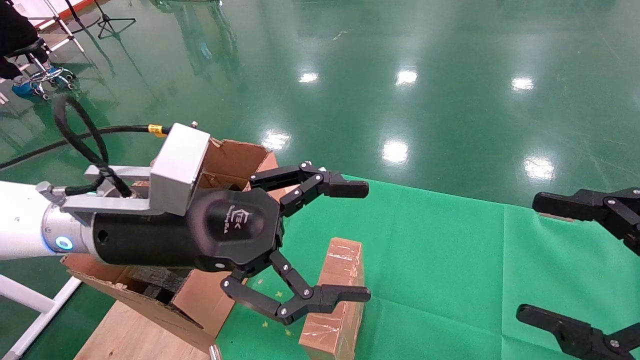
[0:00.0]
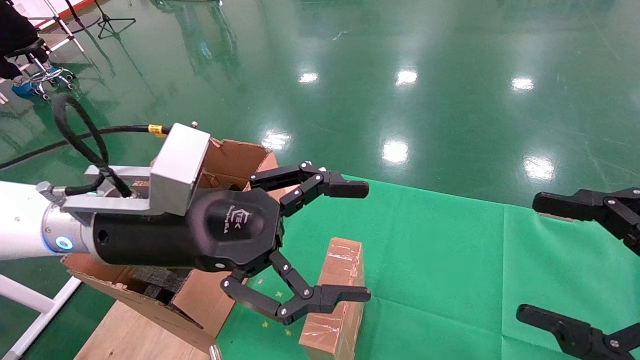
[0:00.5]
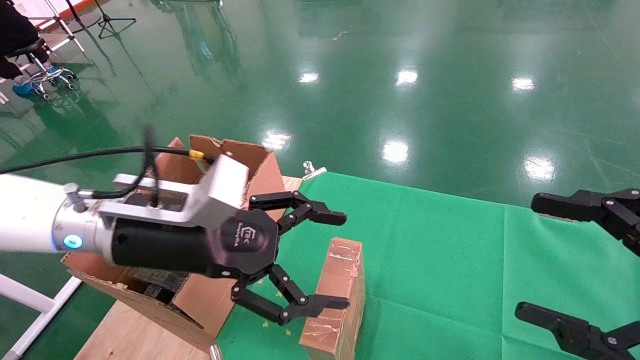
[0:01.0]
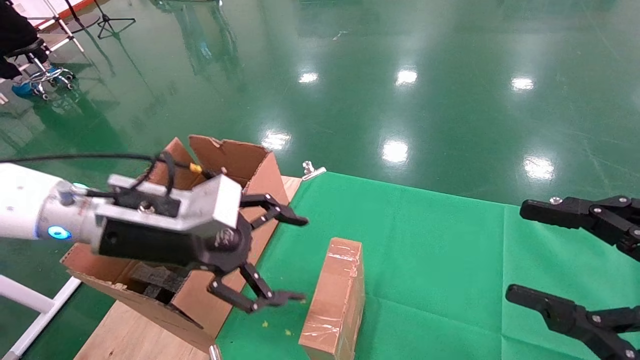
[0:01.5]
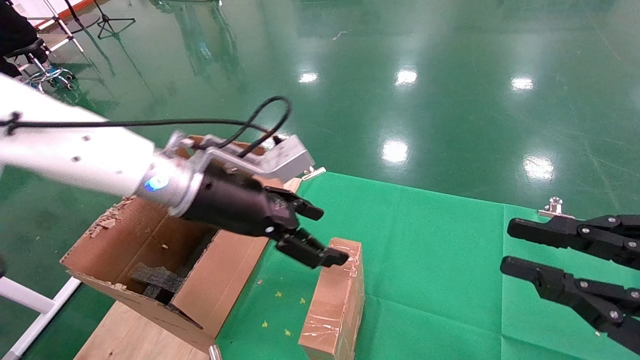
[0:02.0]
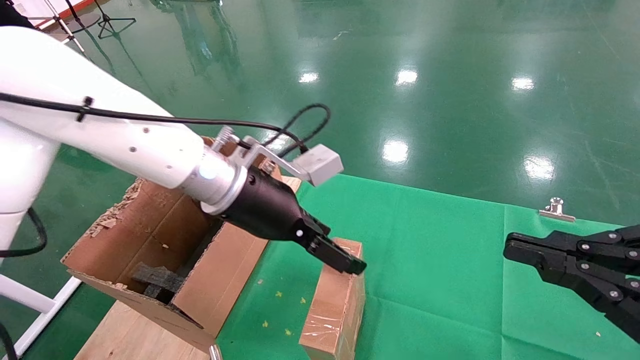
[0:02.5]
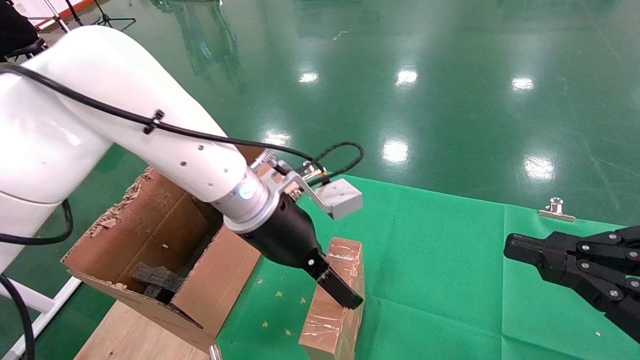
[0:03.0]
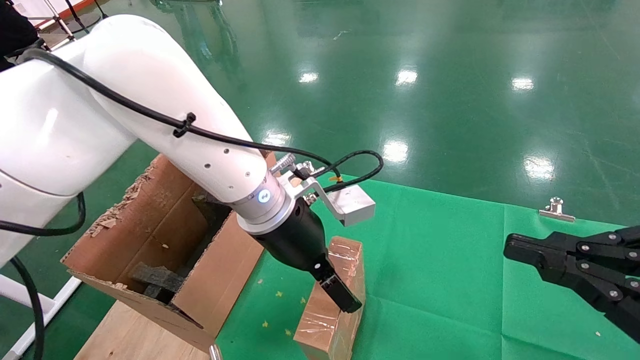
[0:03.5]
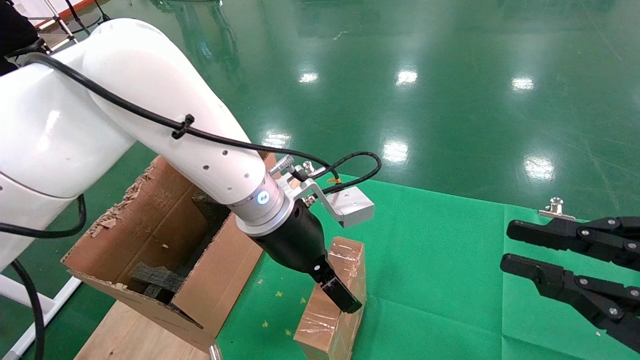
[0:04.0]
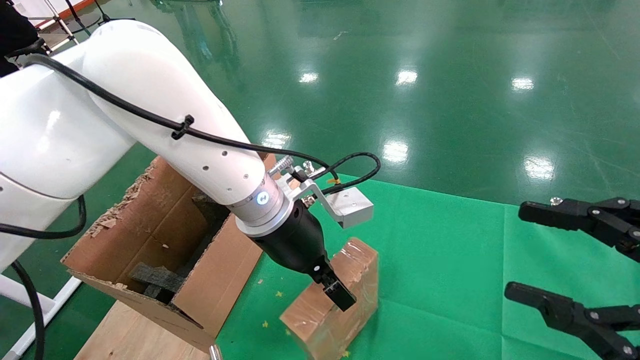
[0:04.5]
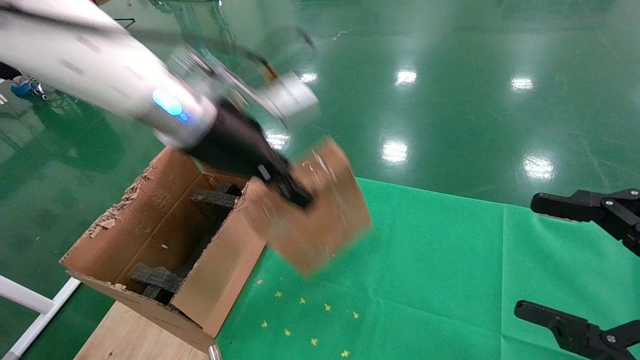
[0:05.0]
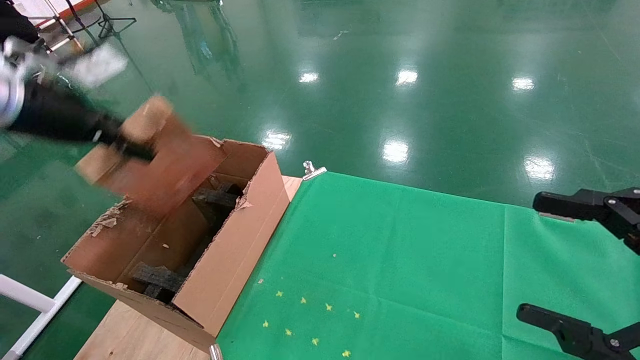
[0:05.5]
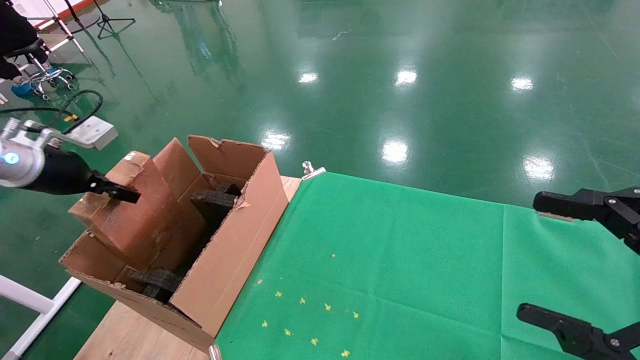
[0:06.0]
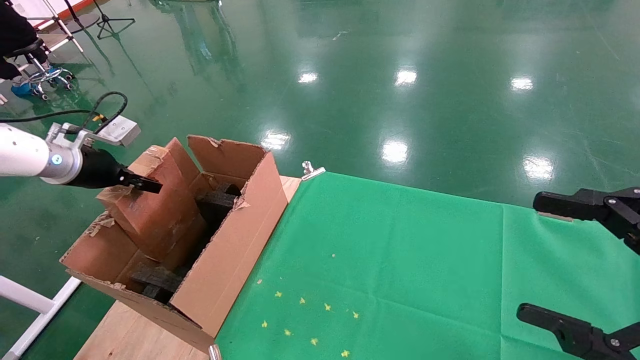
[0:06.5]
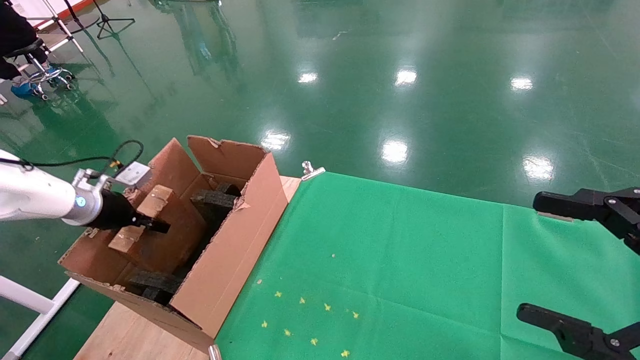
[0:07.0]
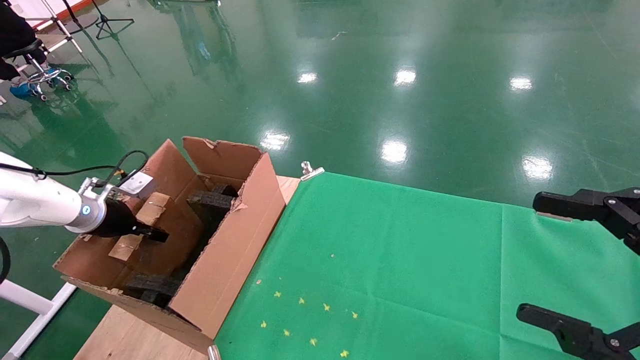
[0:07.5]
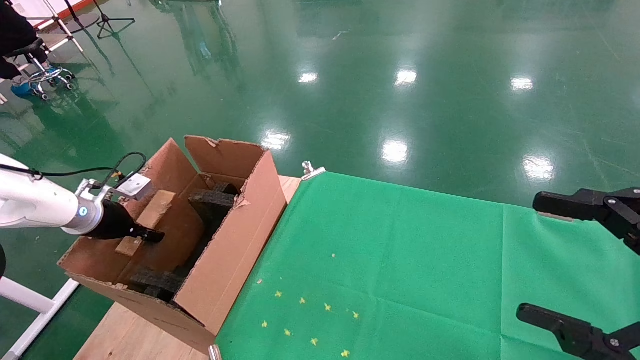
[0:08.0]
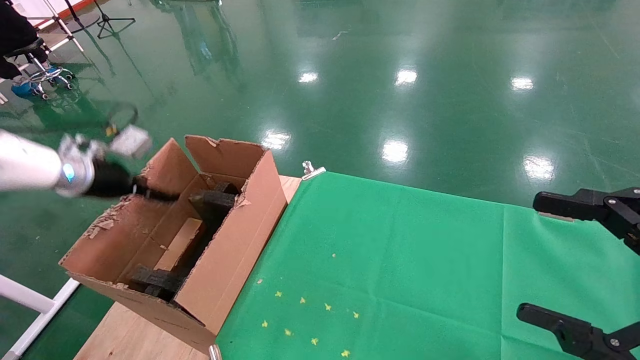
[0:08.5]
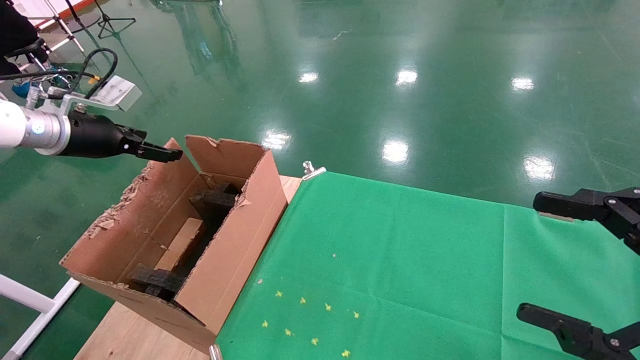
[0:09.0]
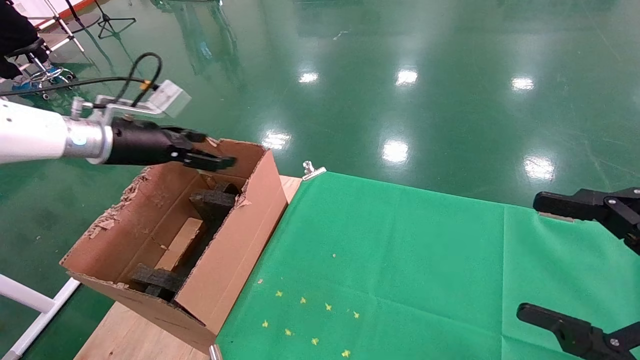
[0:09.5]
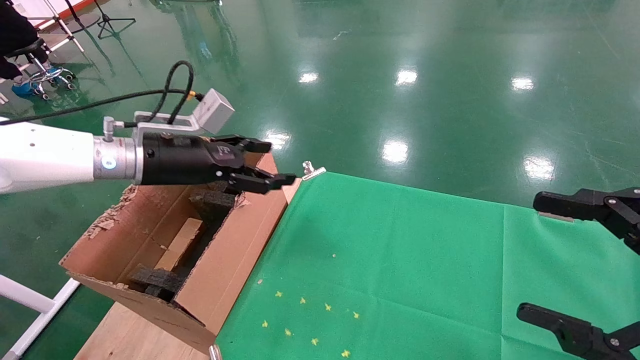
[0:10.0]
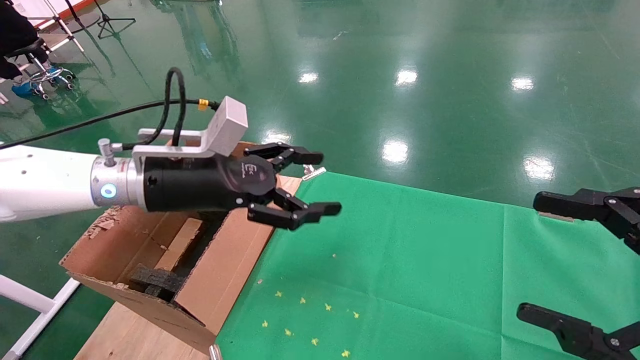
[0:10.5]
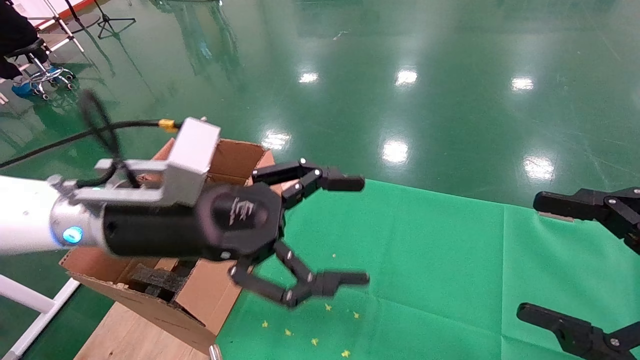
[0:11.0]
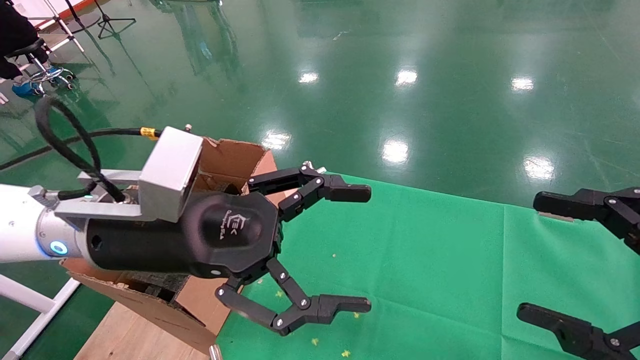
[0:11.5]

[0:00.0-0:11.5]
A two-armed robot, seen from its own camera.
Task of the whole recording: using a robotic arm to pick up a cardboard box and palace it the carton.
Step, 0:01.0 to 0:04.5: Pick up the mouse and the power cord paper box.
Step, 0:05.0 to 0:08.5: Place the mouse and the power cord paper box into the container.
0:00.0 to 0:02.0: The left gripper goes roughly 10 cm forward, while the right gripper closes up.
0:02.0 to 0:04.0: The left gripper goes about 10 cm to the right.
0:04.0 to 0:06.0: The left gripper is displaced to the left by approximately 40 cm, and closes. The right gripper opens up.
0:06.0 to 0:07.5: The left gripper shifts roughly 15 cm downward and forward.
0:07.5 to 0:09.5: The left gripper goes some 20 cm upward and to the right, and opens.
0:09.5 to 0:11.5: The left gripper travels to the right and backward by about 25 cm.

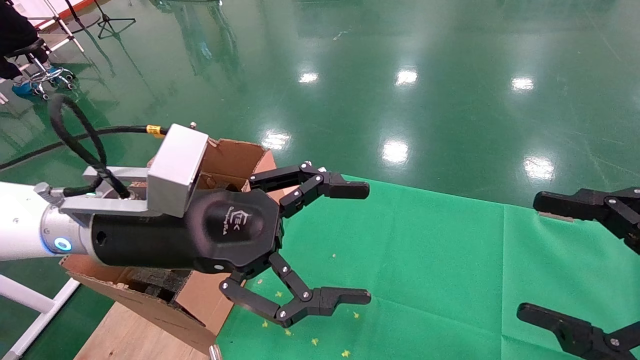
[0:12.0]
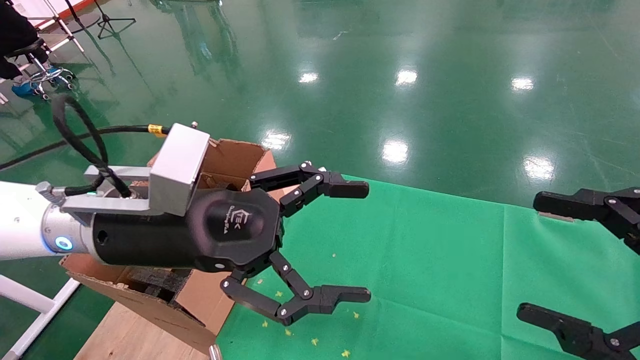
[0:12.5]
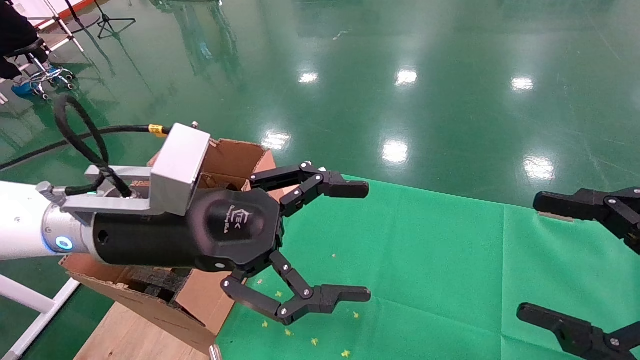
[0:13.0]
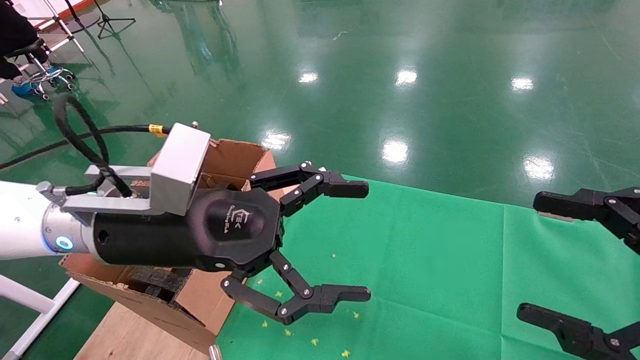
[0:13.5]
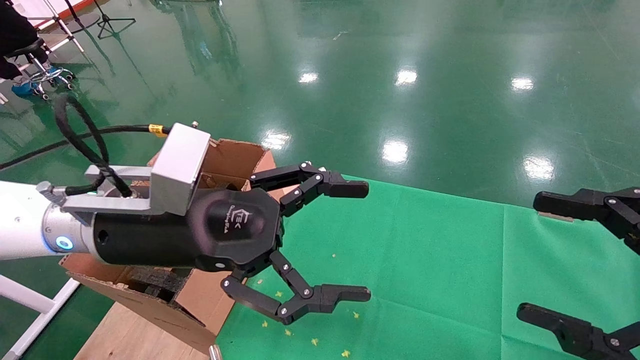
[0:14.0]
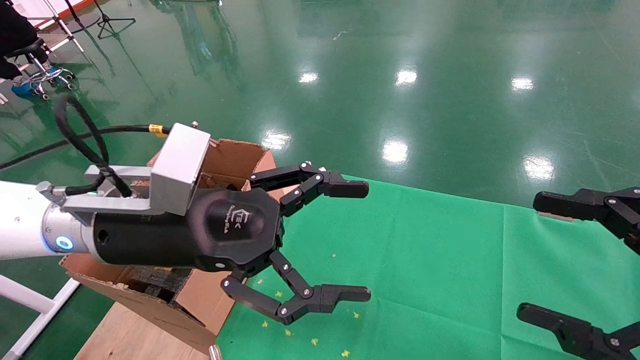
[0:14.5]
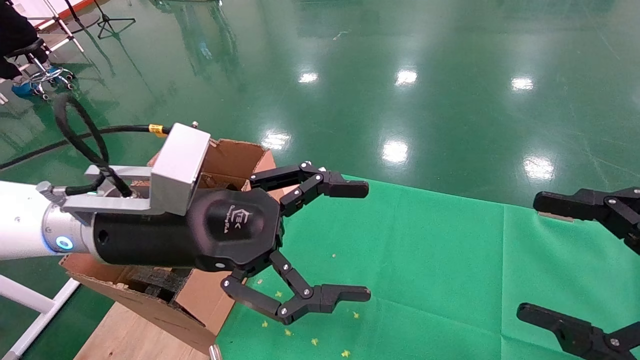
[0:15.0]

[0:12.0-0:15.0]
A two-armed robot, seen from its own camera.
Task of the whole recording: using a robotic arm to pick up a cardboard box and palace it the carton.
0:12.0 to 0:15.0: Both grippers stay put.

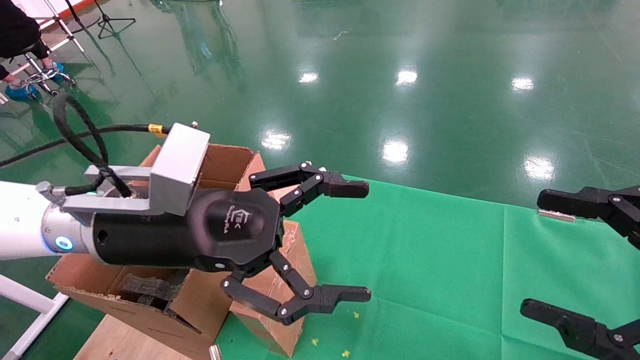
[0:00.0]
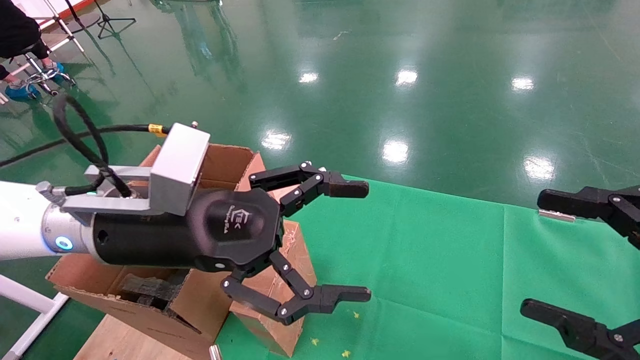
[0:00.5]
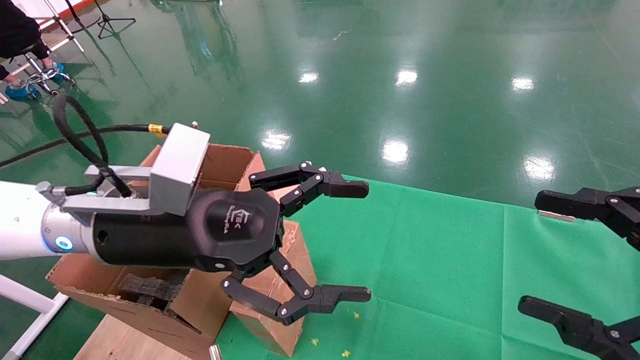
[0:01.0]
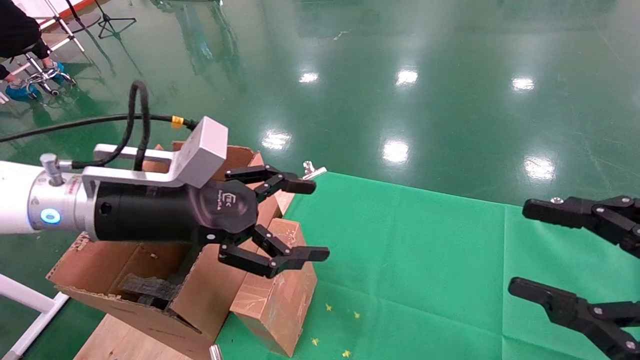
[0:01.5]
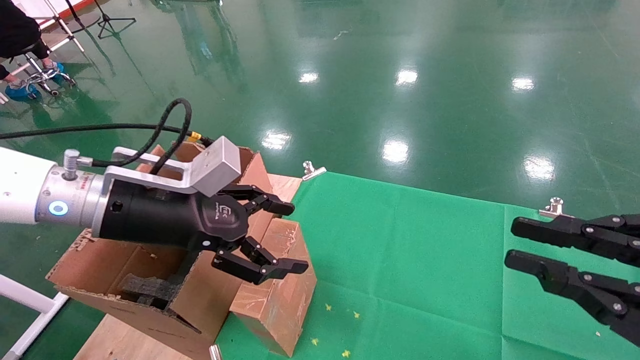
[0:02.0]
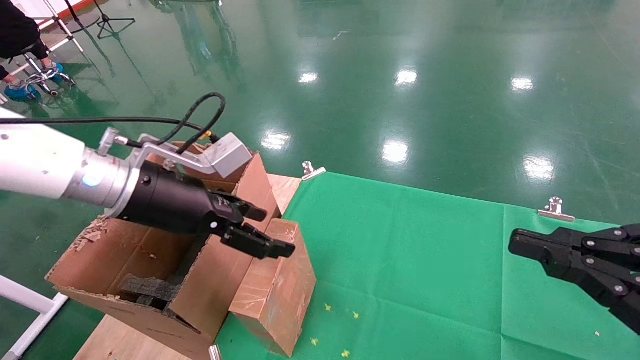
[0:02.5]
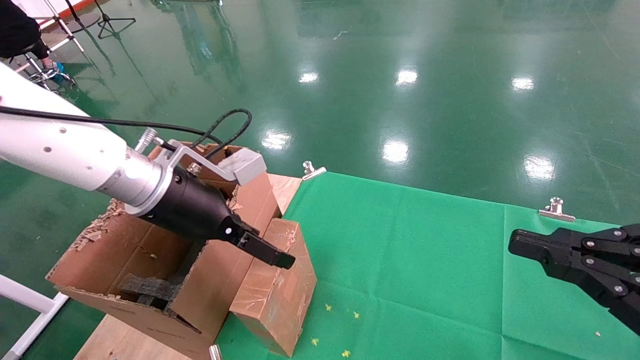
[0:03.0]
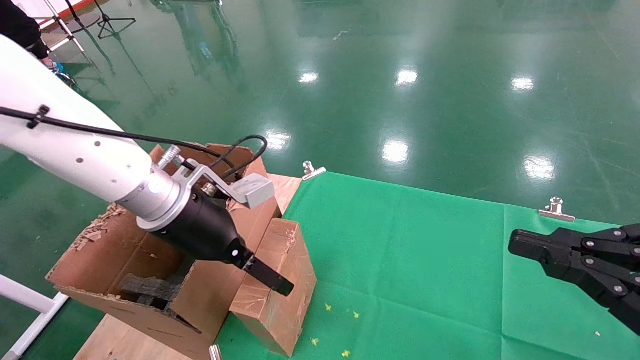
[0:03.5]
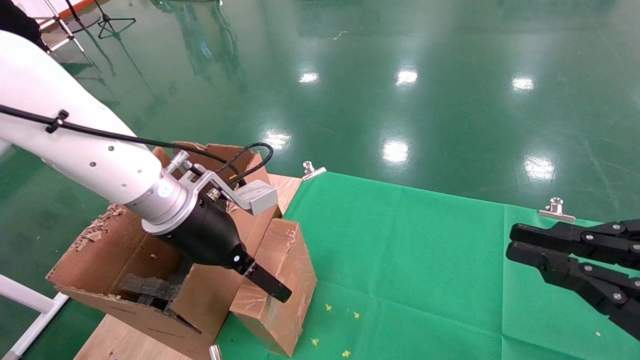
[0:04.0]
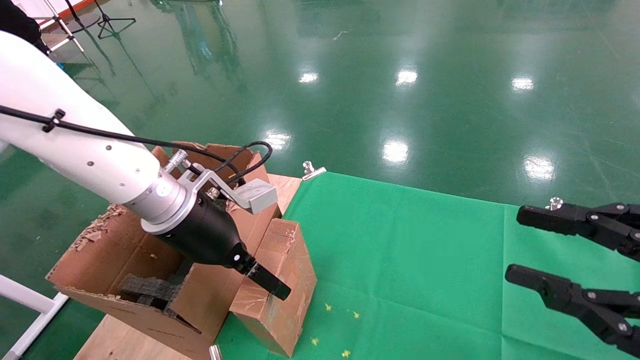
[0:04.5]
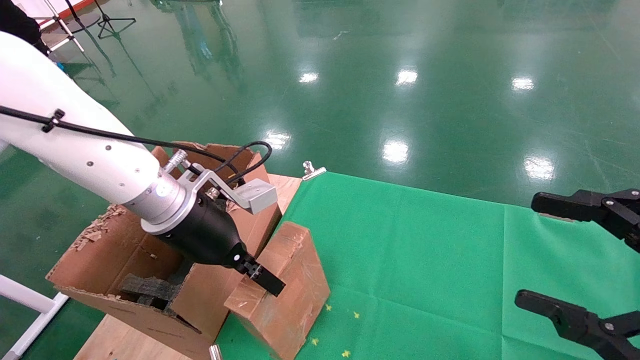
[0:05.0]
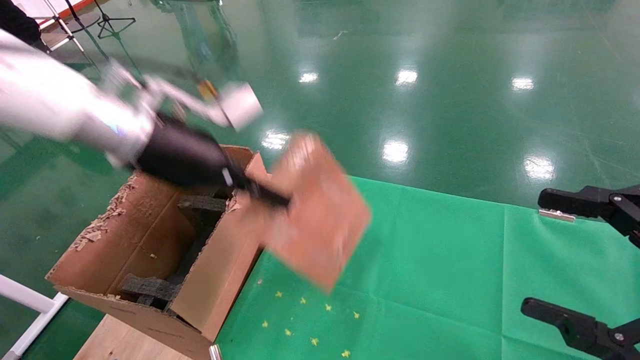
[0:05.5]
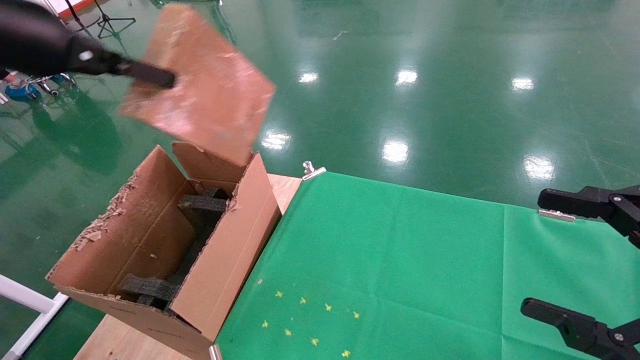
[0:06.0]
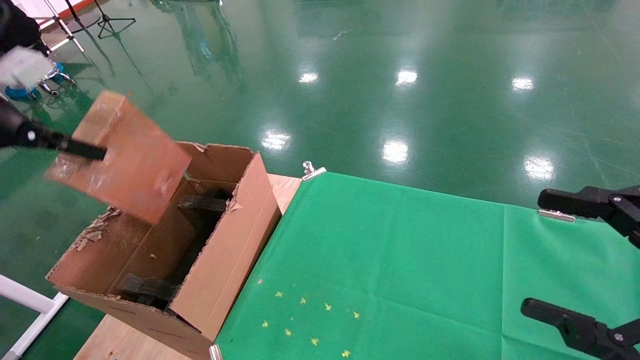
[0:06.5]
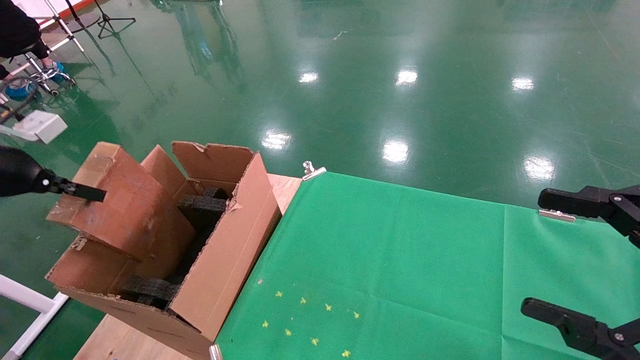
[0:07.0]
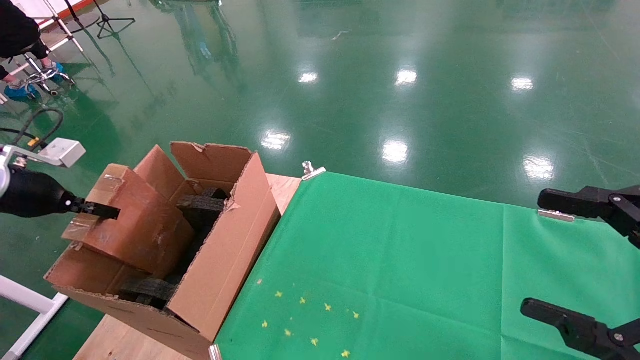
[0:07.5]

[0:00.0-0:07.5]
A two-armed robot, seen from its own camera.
Task of the whole recording: using a robotic arm to pick up a cardboard box and palace it the carton.
Step, 0:01.5 to 0:05.0: Pick up the mouse and the power cord paper box.
0:00.0 to 0:02.0: The left gripper goes some 5 cm to the left, while the right gripper closes.
0:02.0 to 0:04.0: The left gripper shifts by roughly 5 cm.
0:04.0 to 0:05.5: The right gripper opens up. Meanwhile the left gripper travels upward by roughly 10 cm, and closes its fingers.
0:05.5 to 0:07.5: The left gripper travels to the left by approximately 30 cm.
